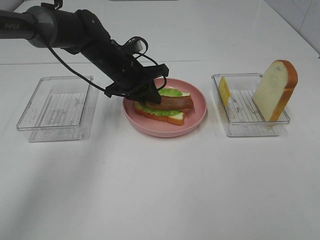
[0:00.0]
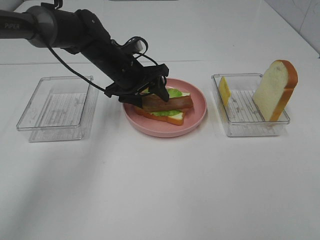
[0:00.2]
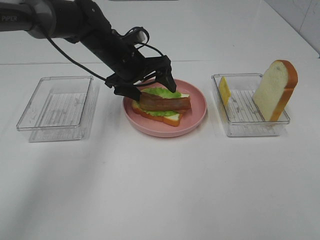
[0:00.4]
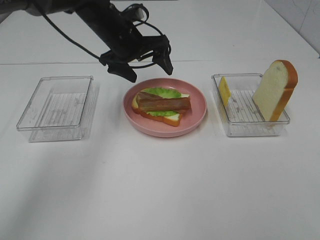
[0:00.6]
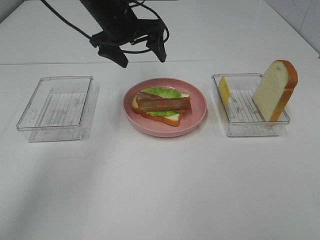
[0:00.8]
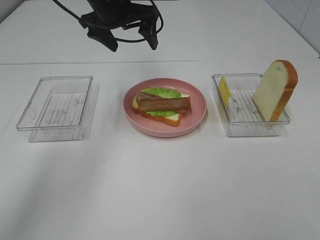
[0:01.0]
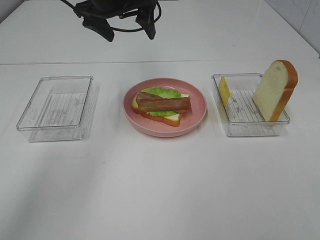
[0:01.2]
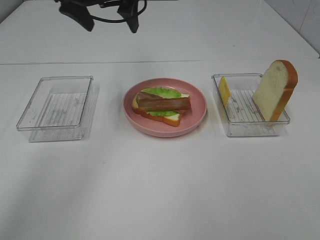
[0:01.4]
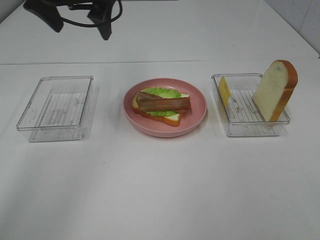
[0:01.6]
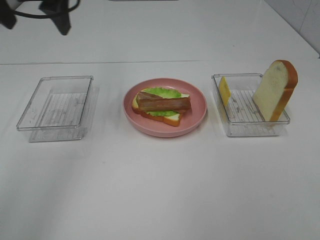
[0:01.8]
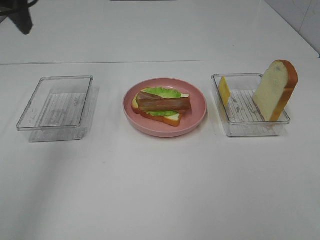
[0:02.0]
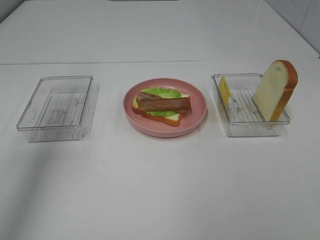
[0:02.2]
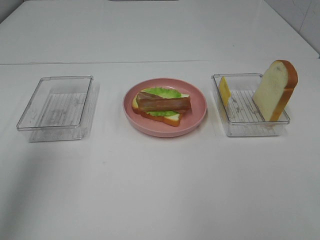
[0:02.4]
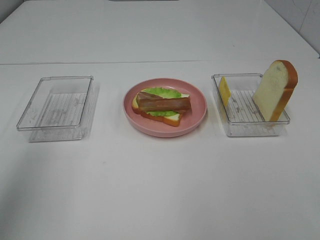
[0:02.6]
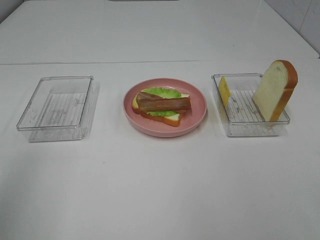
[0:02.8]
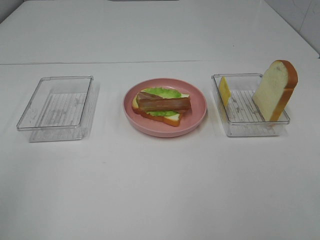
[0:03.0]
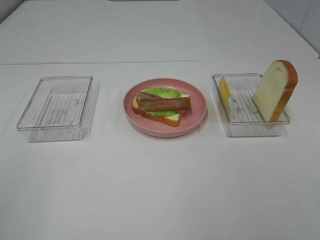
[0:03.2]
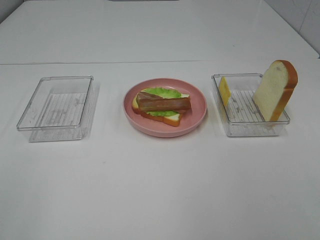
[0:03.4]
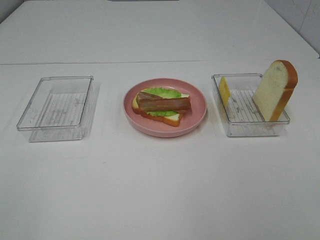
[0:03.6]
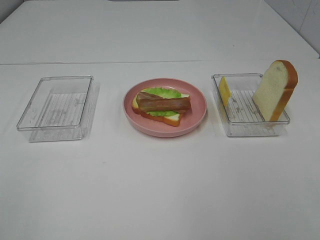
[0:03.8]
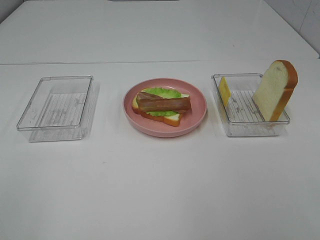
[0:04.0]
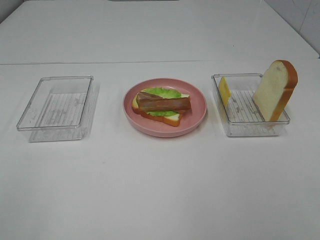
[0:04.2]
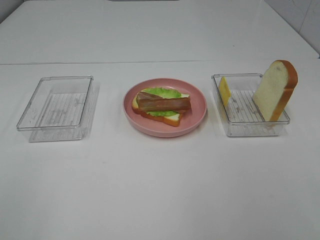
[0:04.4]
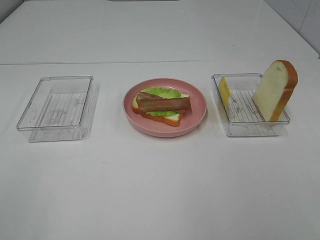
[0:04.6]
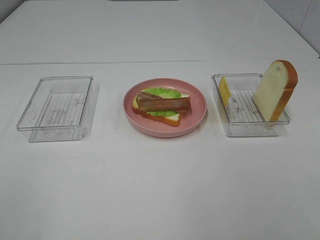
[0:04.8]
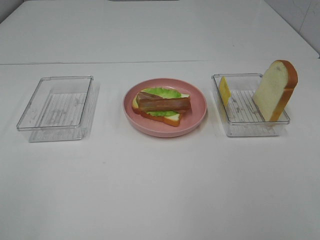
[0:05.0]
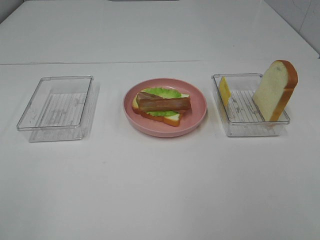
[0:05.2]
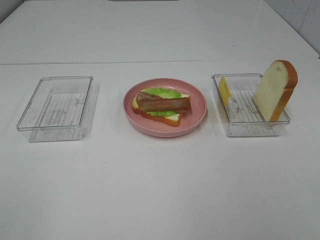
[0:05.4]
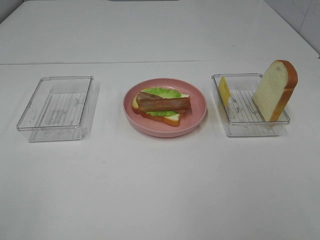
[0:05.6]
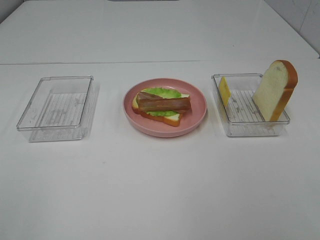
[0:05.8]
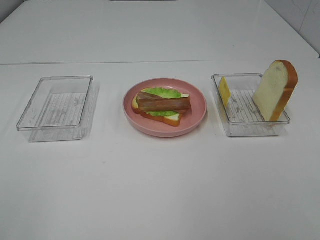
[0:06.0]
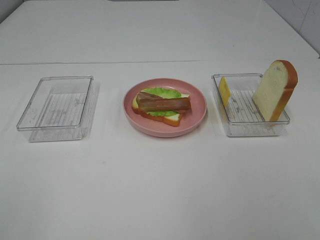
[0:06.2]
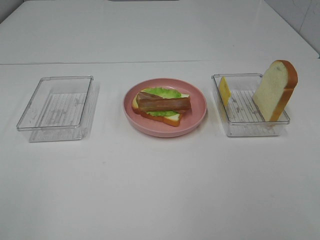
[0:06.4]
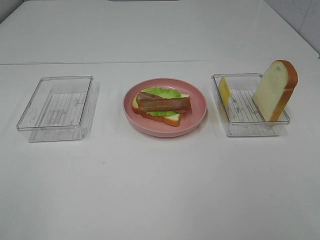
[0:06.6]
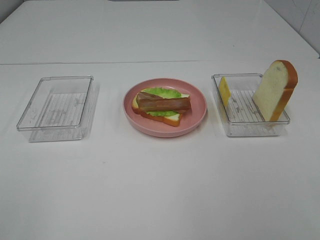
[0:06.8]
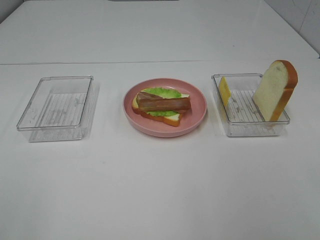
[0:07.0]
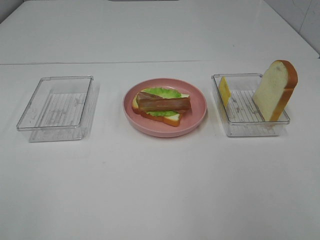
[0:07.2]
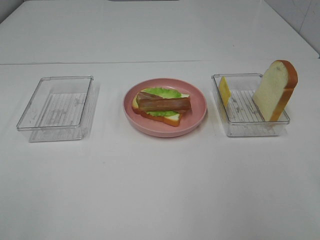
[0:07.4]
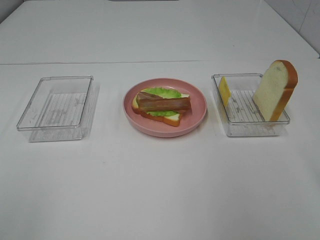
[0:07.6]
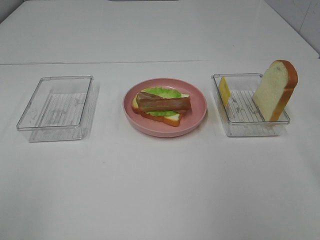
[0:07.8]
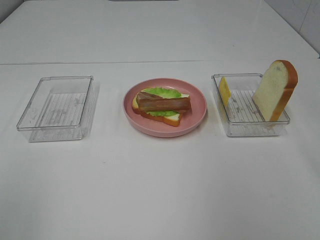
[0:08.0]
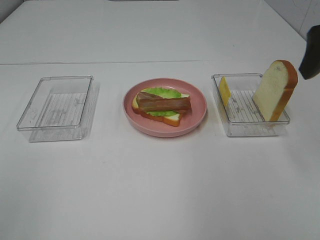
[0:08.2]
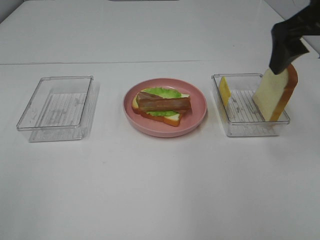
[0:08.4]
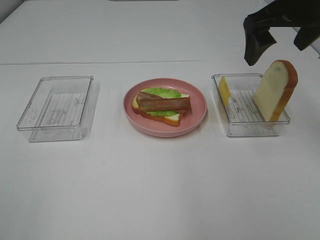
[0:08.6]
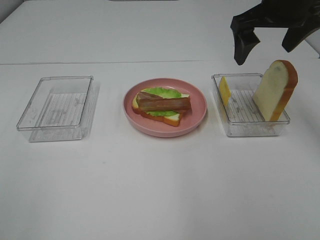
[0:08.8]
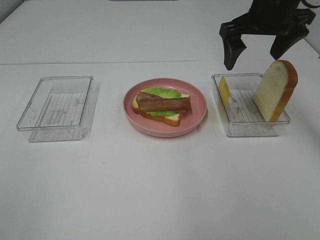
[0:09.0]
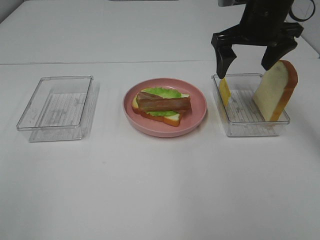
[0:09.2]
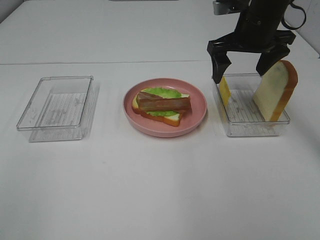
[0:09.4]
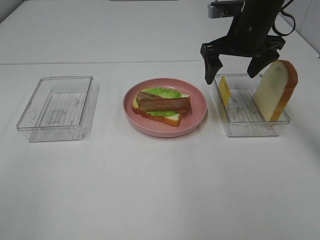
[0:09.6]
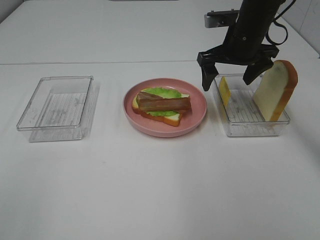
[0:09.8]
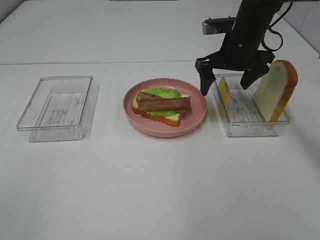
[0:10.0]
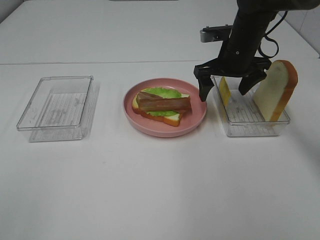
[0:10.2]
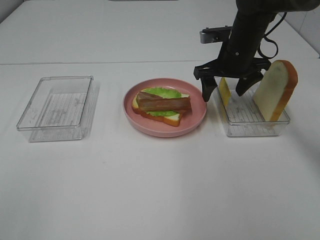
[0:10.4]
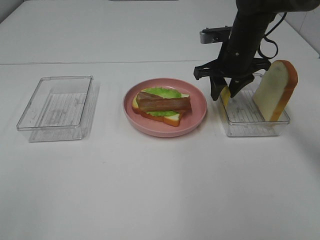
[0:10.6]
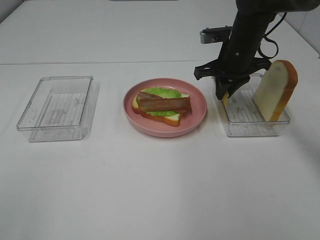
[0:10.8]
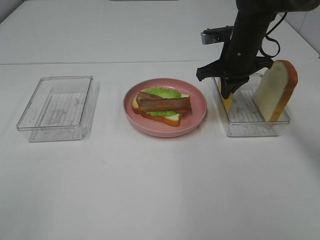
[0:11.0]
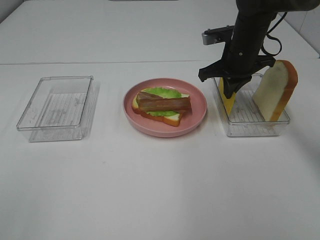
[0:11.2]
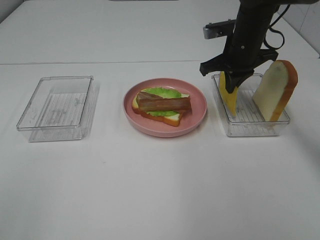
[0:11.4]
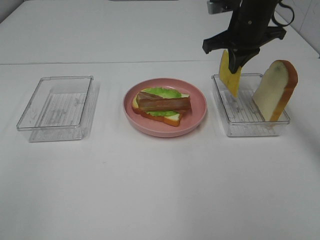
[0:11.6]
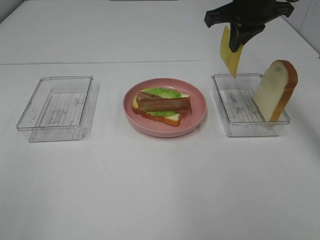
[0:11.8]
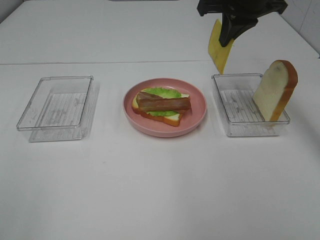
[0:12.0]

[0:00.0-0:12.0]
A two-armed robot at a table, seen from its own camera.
Task of the whole recording: Make sandwiches.
Step, 0:00.8 to 0:11.0: Right hand:grab the cheese slice.
0:00.0 to 0:01.6: The left gripper heads upward, covering roughly 20 cm, and opens.
0:01.6 to 0:03.0: The left gripper travels backward and to the left by roughly 35 cm.
0:07.6 to 0:09.0: The right gripper travels forward and to the left by about 25 cm.
0:09.0 to 0:10.4: The right gripper is displaced downward by approximately 10 cm.
0:10.4 to 0:12.0: The right gripper goes about 15 cm upward, and closes up.

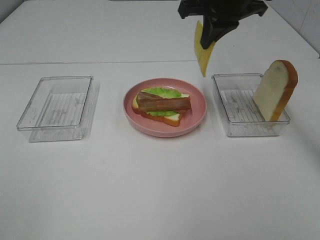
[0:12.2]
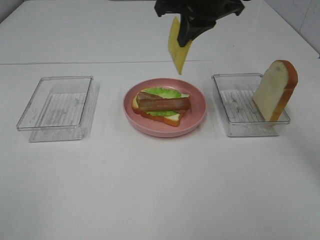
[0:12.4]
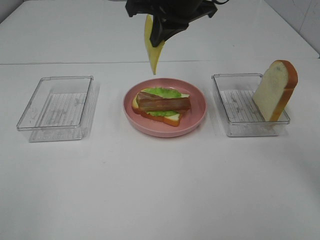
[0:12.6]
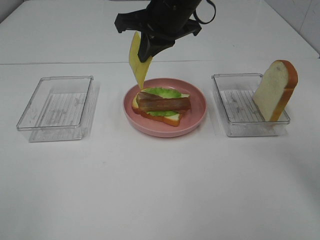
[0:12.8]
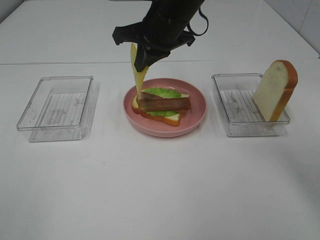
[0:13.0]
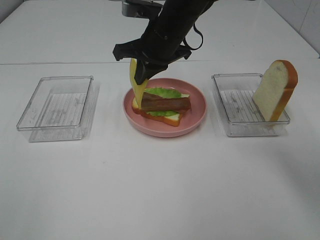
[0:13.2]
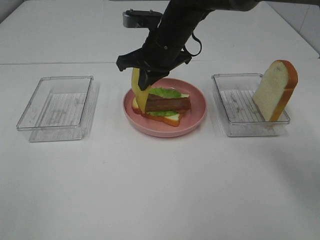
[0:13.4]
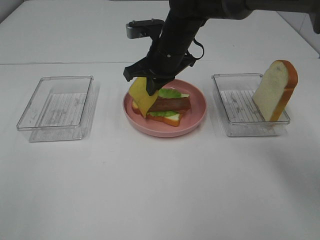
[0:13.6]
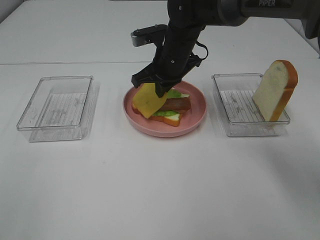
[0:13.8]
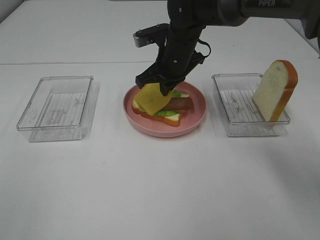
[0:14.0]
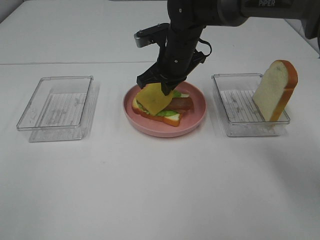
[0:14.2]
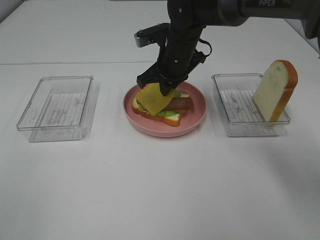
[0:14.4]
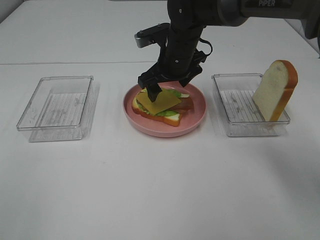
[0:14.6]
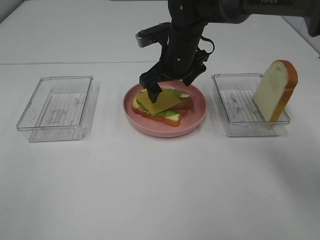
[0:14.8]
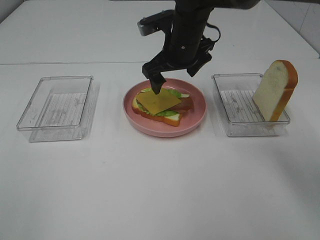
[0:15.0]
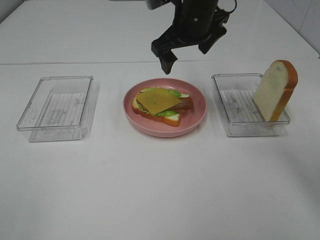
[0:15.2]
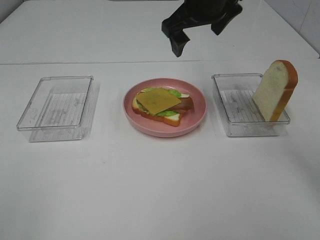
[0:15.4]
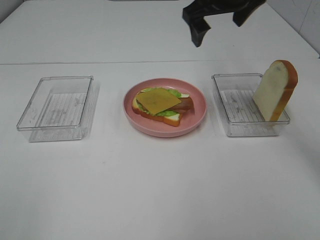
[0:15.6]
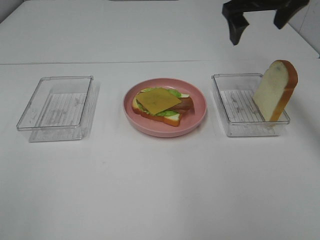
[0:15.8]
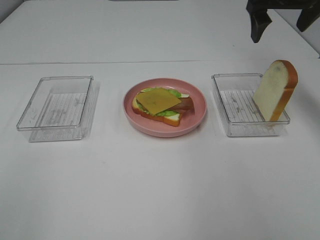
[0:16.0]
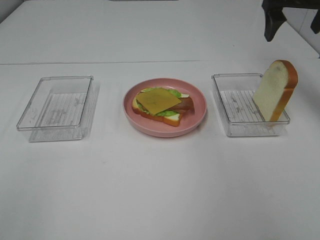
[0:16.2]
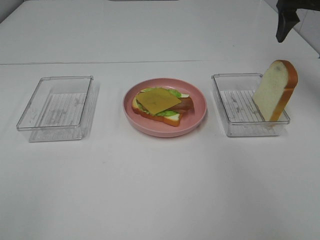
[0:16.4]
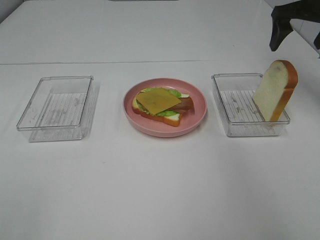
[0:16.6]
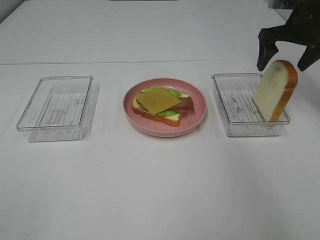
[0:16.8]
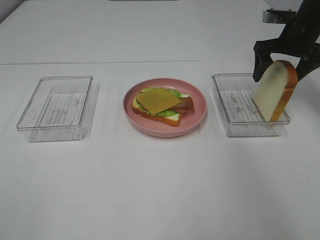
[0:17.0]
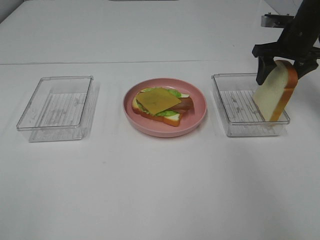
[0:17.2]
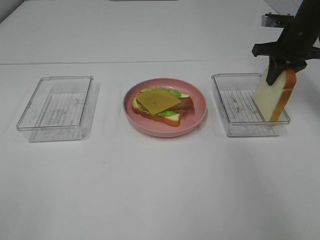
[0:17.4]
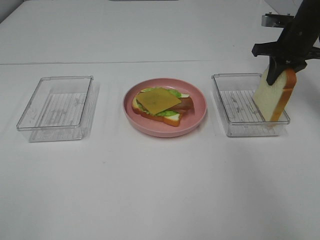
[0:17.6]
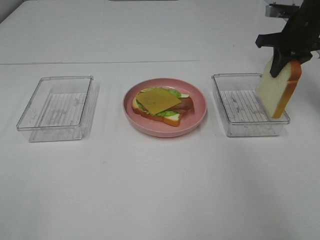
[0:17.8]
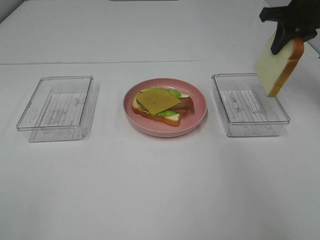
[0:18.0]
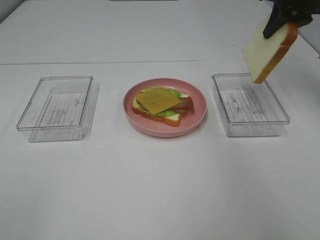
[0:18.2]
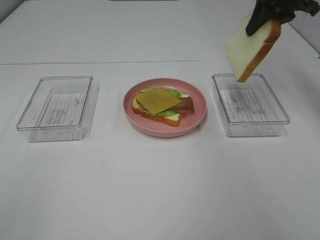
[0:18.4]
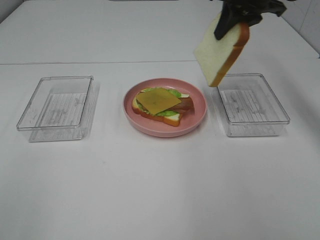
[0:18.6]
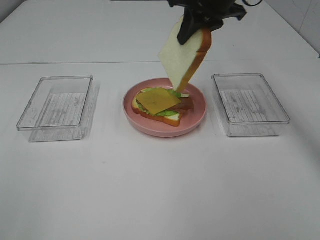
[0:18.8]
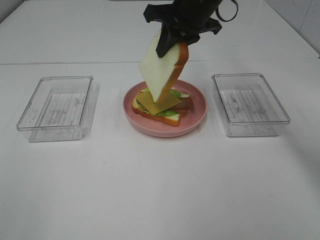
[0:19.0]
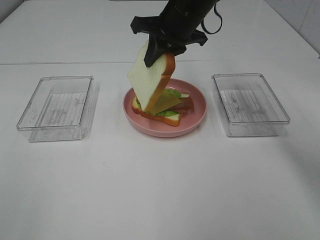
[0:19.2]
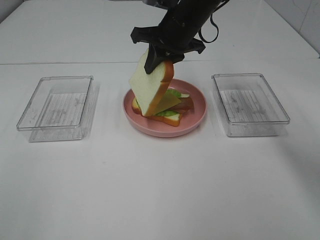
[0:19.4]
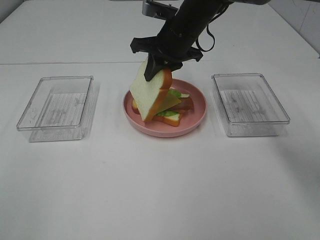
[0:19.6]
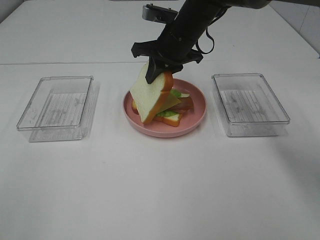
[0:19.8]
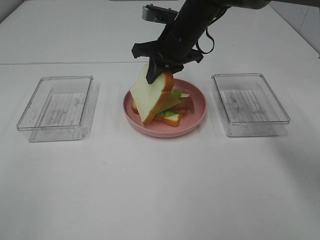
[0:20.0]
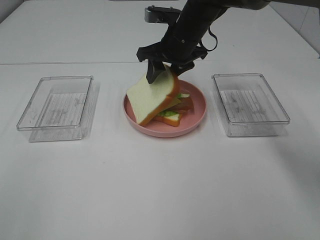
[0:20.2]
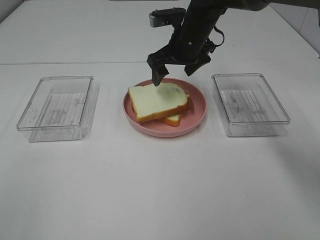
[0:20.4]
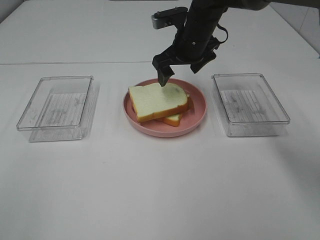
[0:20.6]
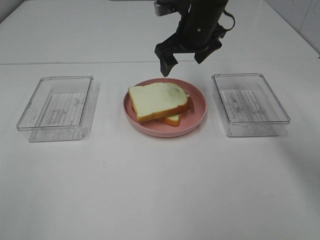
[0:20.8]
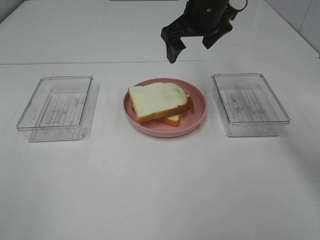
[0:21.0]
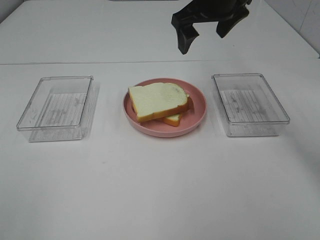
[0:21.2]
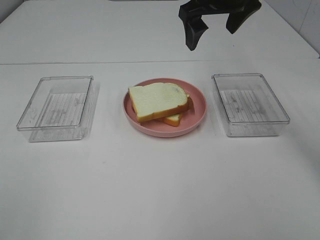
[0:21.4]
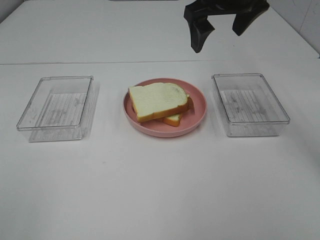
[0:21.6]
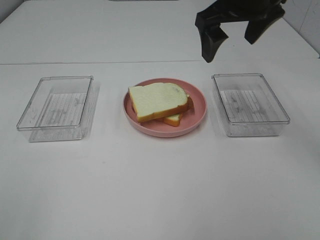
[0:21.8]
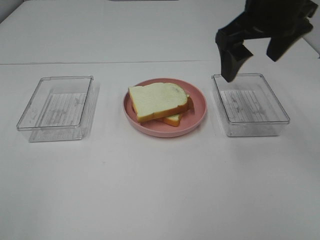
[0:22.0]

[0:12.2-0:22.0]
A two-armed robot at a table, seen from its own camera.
Task of the whole recording: Make sandwiches.
Step, 0:12.2 to 0:15.0: Right hand:place the cheese slice on top of the bacon.
Step, 0:15.2 to 0:17.4: Right hand:grab the bread slice.
Step, 0:17.6 to 0:20.6: Right hand:place the bread slice on the cheese slice.
0:12.2 to 0:13.6: The right gripper heads downward and to the left, covering roughly 15 cm.
0:13.6 to 0:15.0: The right gripper opens.
0:15.0 to 0:16.4: The right gripper goes about 25 cm to the right.
0:16.4 to 0:17.8: The right gripper moves downward, some 10 cm, and closes.
0:17.8 to 0:19.2: The right gripper is displaced to the left by roughly 25 cm.
0:19.2 to 0:20.6: The right gripper changes place by about 5 cm, and opens its fingers.
0:20.6 to 0:22.0: The right gripper travels backward, upward and to the right by roughly 20 cm.
